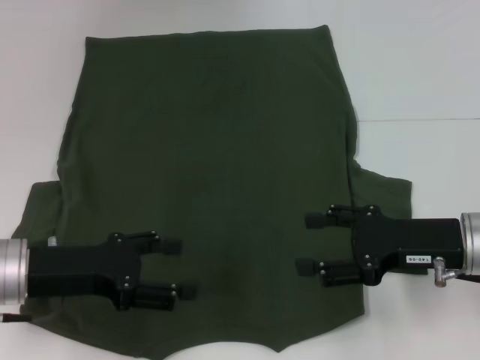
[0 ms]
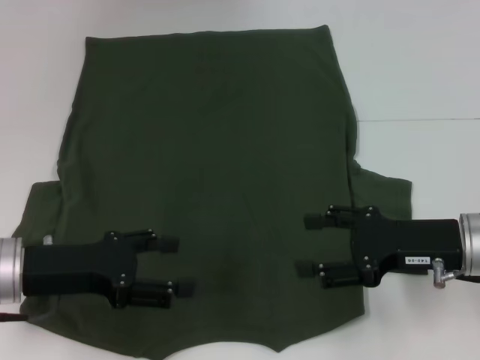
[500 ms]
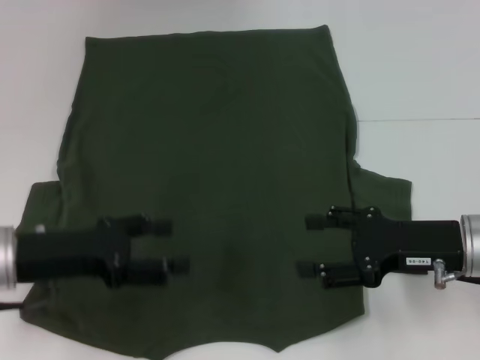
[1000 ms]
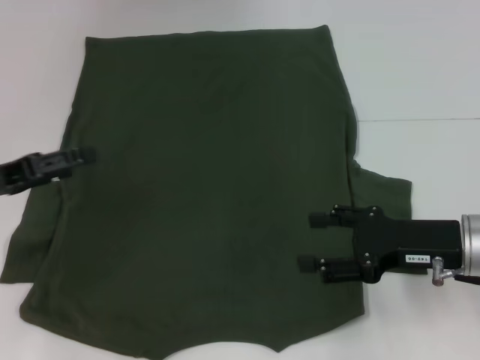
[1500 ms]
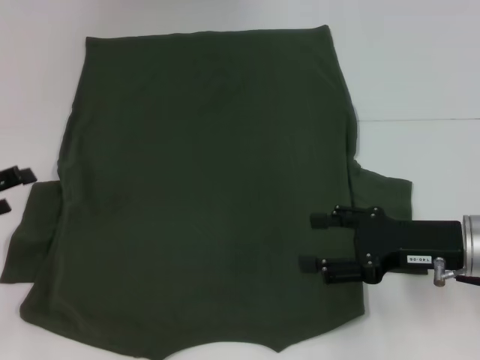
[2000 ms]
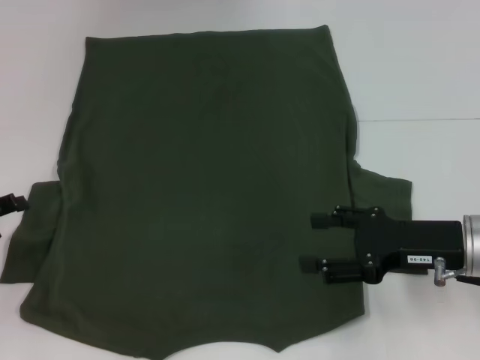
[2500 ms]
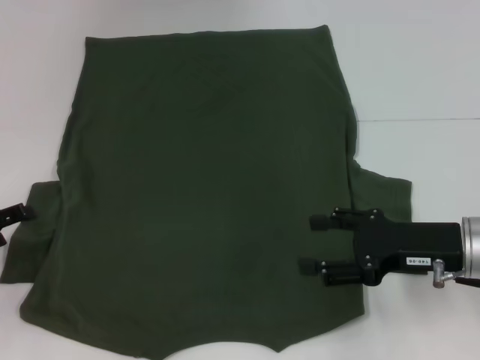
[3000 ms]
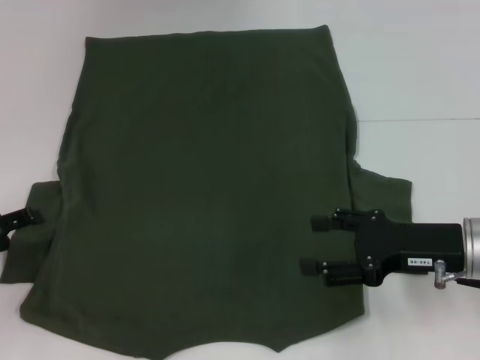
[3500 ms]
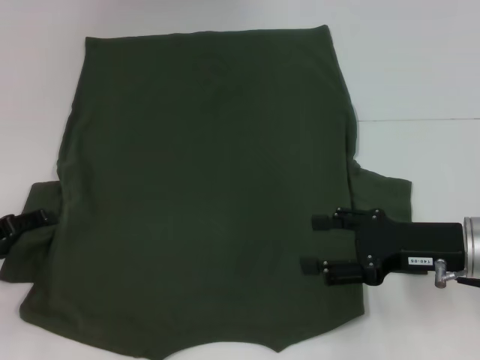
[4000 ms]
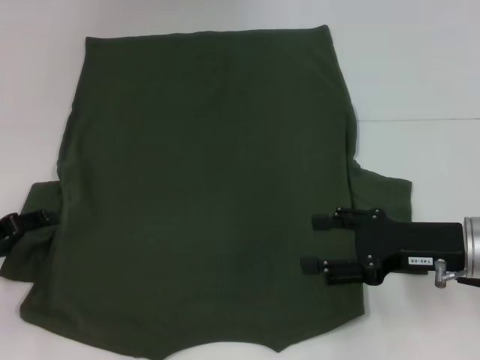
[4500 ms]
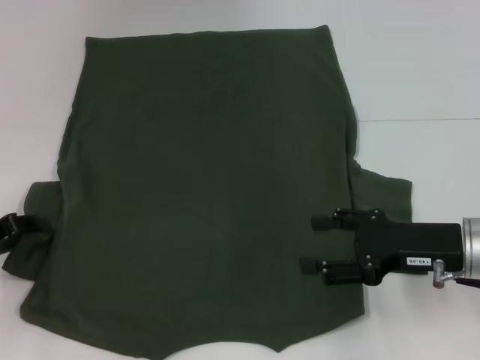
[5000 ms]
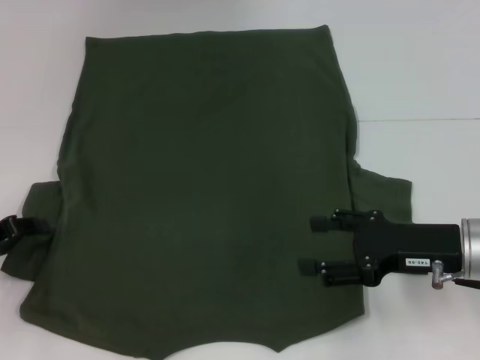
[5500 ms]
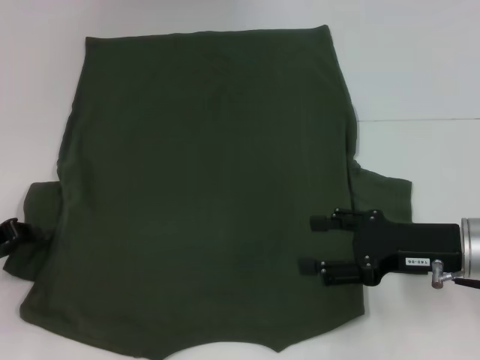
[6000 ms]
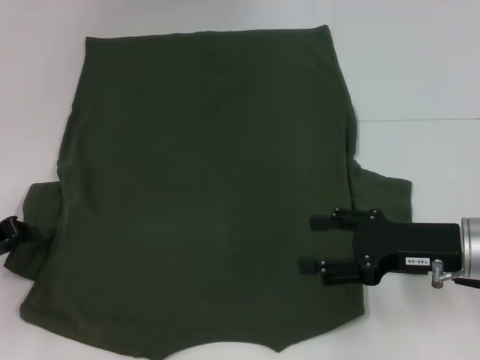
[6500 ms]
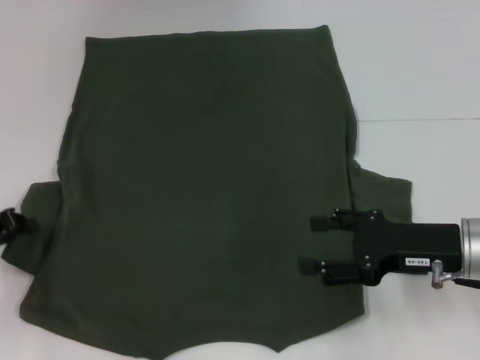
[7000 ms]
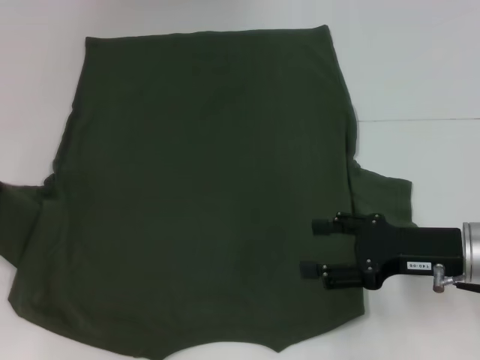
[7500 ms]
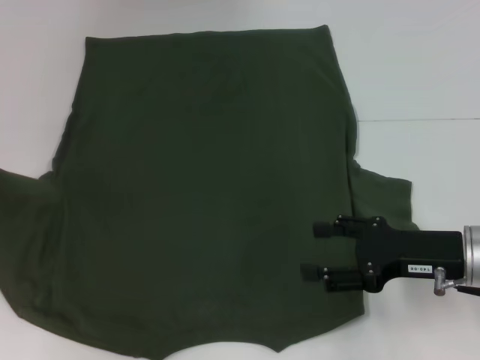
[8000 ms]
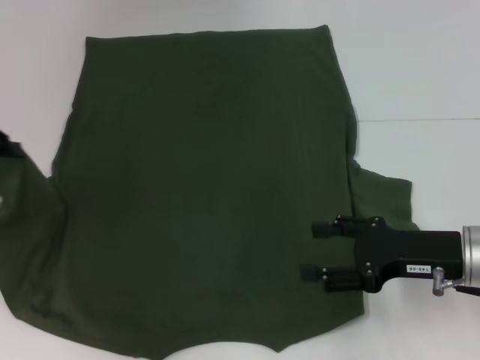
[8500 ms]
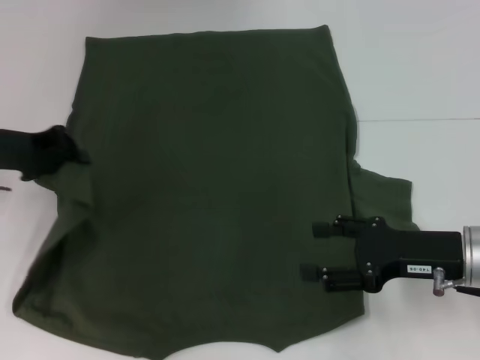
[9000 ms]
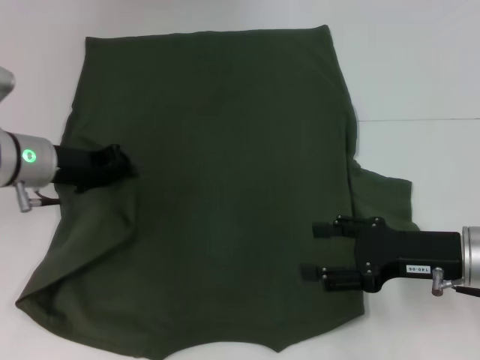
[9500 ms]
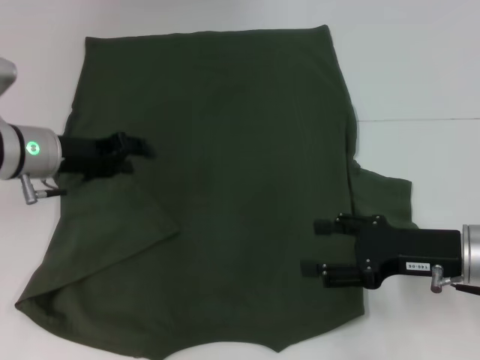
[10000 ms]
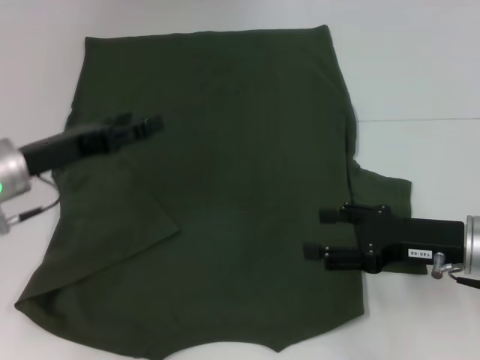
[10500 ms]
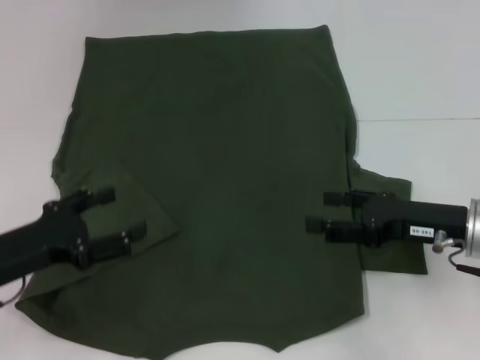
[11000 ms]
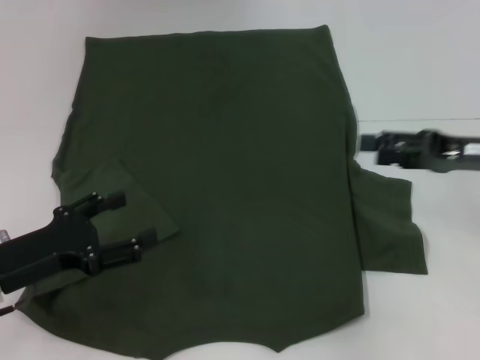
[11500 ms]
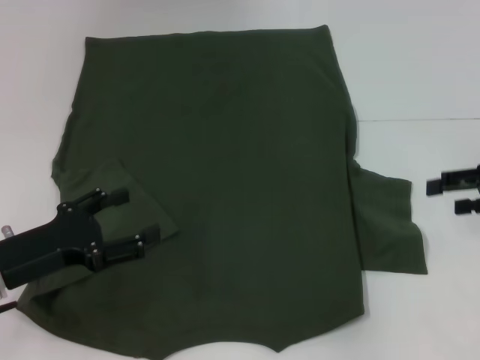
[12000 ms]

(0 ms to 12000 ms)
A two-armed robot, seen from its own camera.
Step, 0 ms - 9500 ms: Fold the bottom left sleeve with your left hand.
0 ms - 2000 ms: The left gripper goes some 10 cm to the left.
2000 ms - 4000 ms: The grippers make only small movements.
4000 ms - 6000 ms: The left gripper closes its fingers.
6000 ms - 8000 ms: The left gripper travels upward and to the left by roughly 15 cm.
8000 ms - 10000 ms: The left gripper heads to the right, covering approximately 15 cm, and opens its fingers.
10000 ms - 12000 ms: The left gripper heads backward, covering roughly 15 cm, and opens its fingers. The right gripper heads to the right, upward and forward, covering approximately 15 cm.

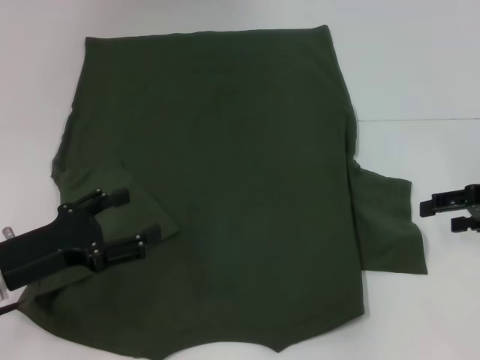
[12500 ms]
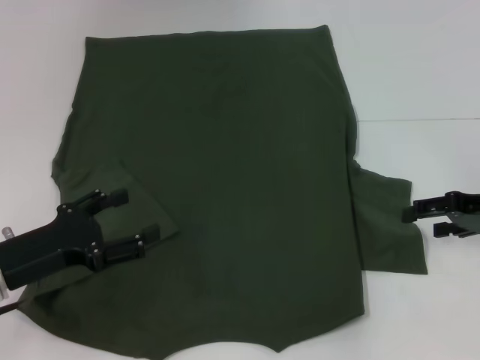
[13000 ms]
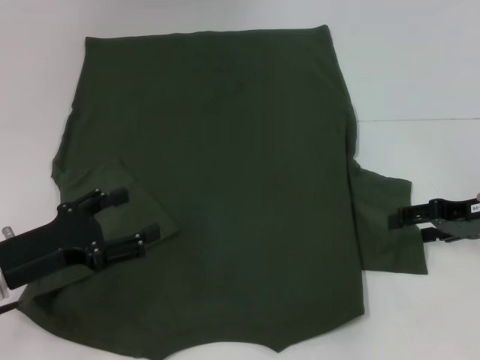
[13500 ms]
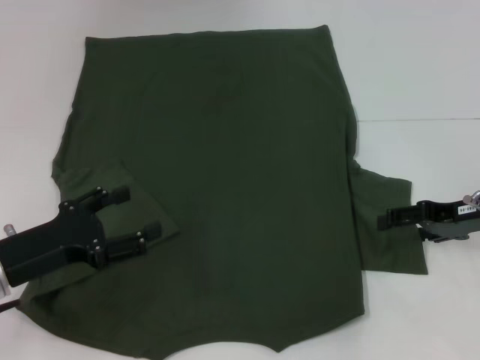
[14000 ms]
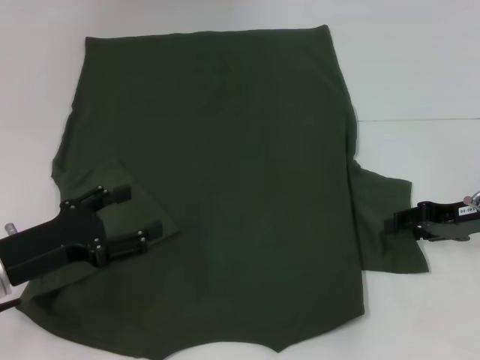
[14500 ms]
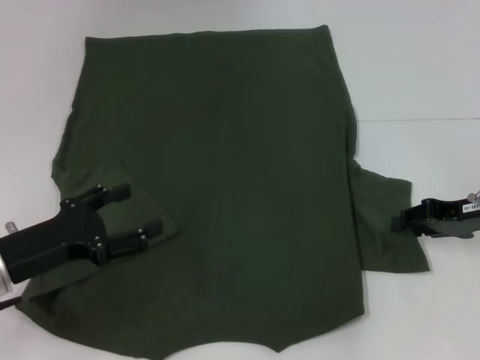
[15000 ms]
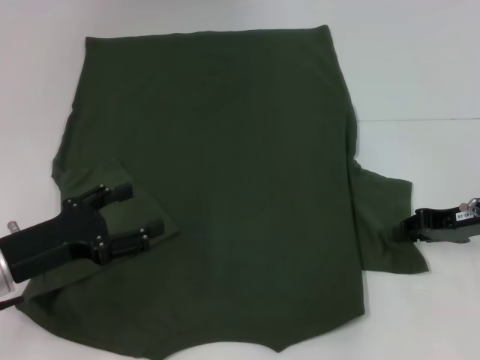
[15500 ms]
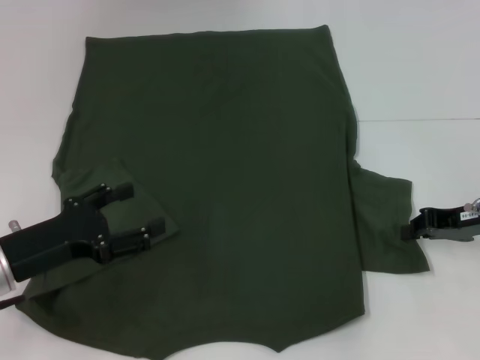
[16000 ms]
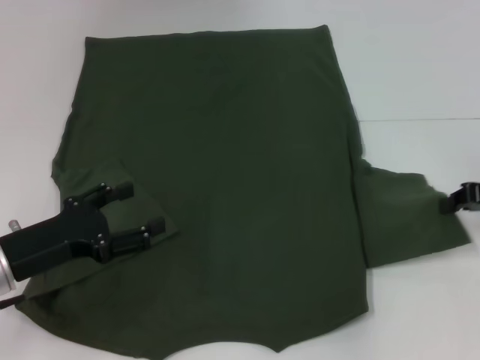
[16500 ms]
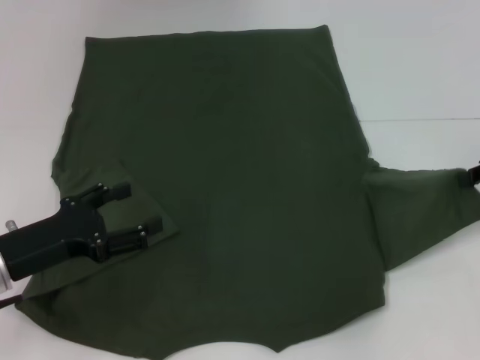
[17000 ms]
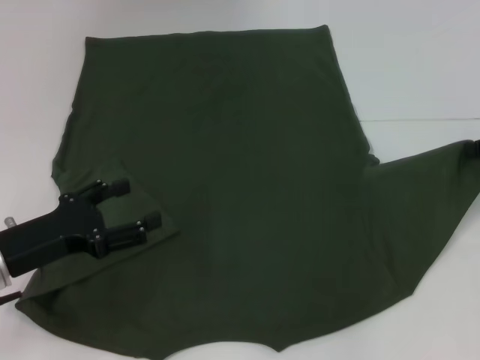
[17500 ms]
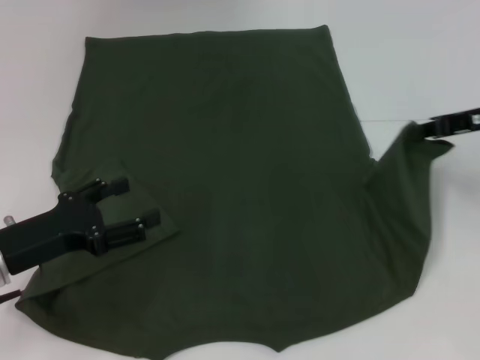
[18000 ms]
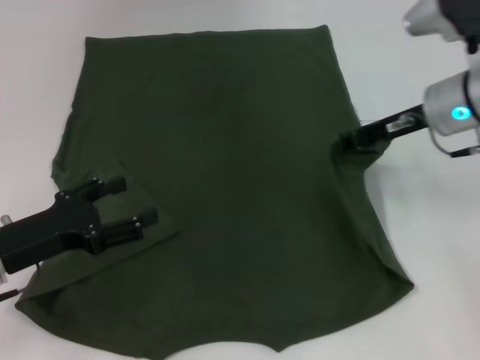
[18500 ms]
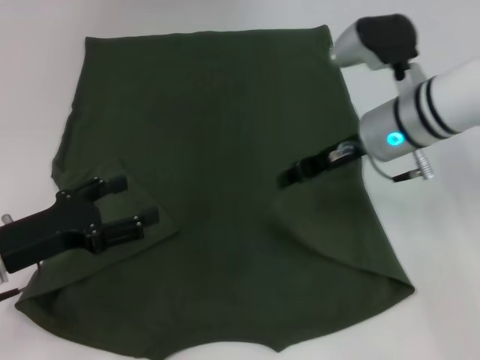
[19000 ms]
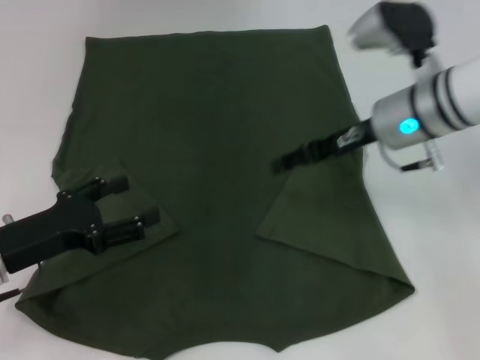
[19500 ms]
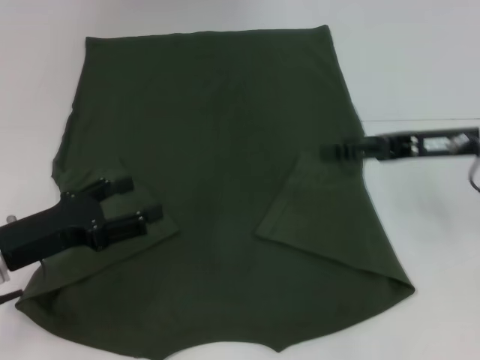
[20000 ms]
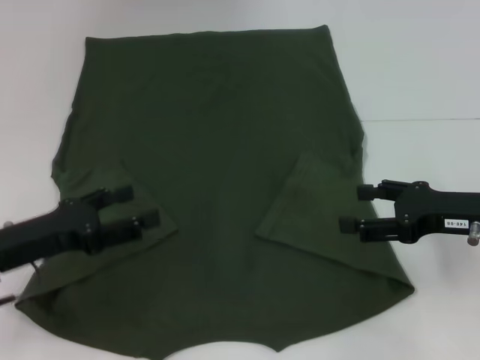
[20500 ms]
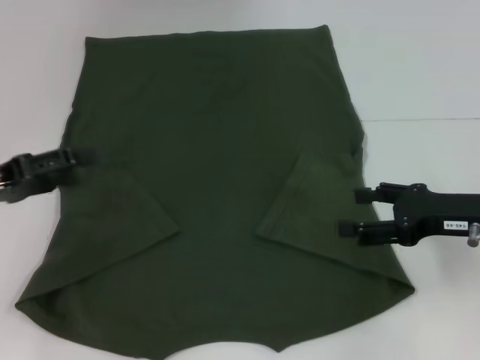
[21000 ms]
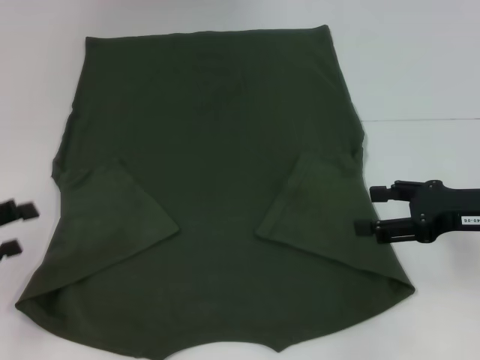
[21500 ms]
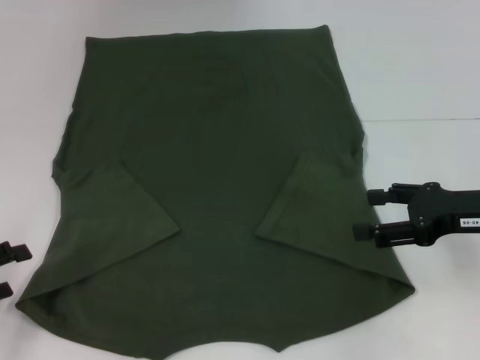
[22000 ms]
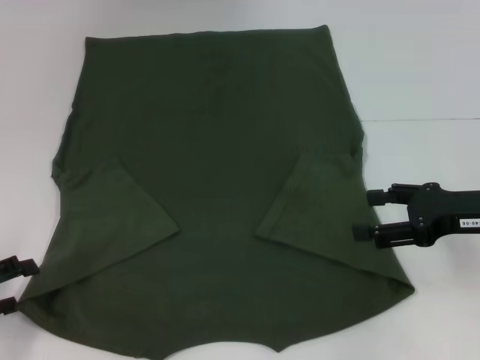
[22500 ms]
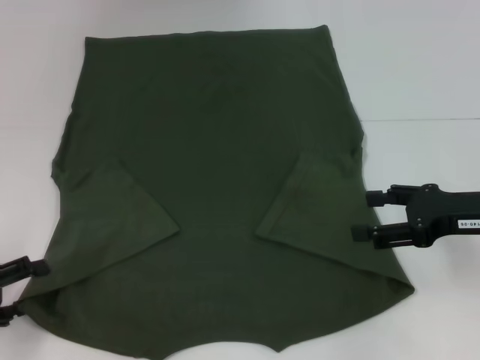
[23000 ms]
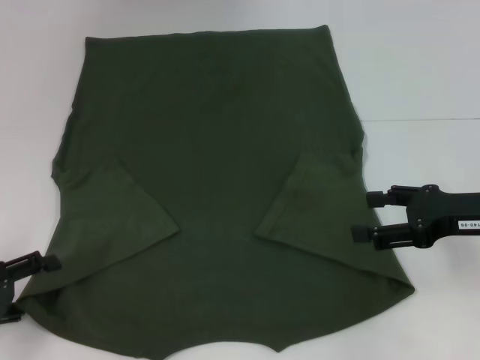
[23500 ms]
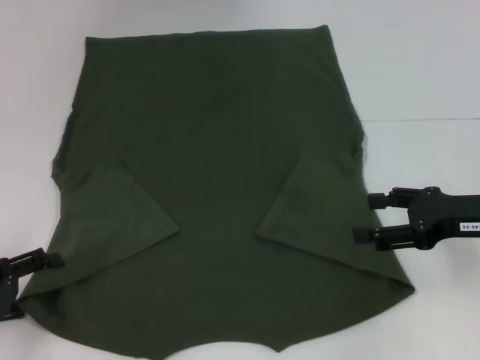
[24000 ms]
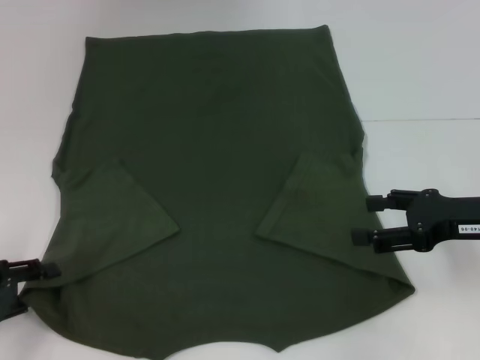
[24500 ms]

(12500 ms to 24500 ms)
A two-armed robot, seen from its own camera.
Step, 12500 ms - 19000 ms: Fold the bottom right sleeve with your right hand.
12500 ms - 14500 ms: The right gripper ends up about 5 cm from where it was.
14500 ms - 16500 ms: The right gripper closes its fingers.
16500 ms - 18500 ms: The right gripper is displaced to the left, forward and upward by some 15 cm.
18500 ms - 20500 ms: The right gripper goes about 15 cm backward, downward and to the right, and opens up.
20500 ms - 22500 ms: The left gripper is displaced to the left by about 10 cm.
22500 ms - 24500 ms: The grippers move only a little.

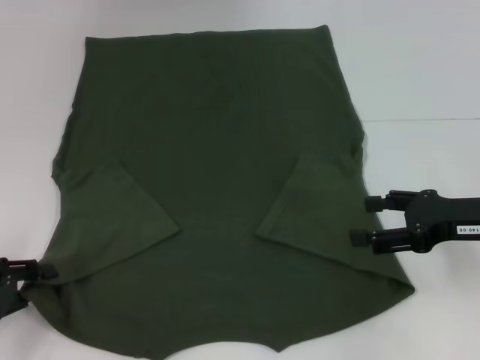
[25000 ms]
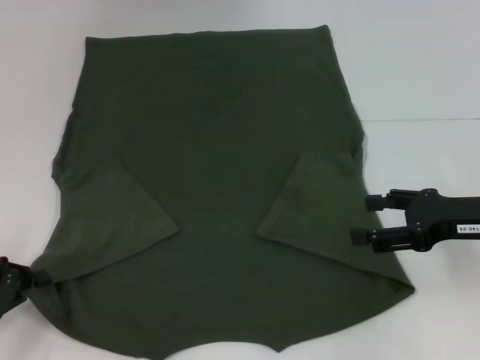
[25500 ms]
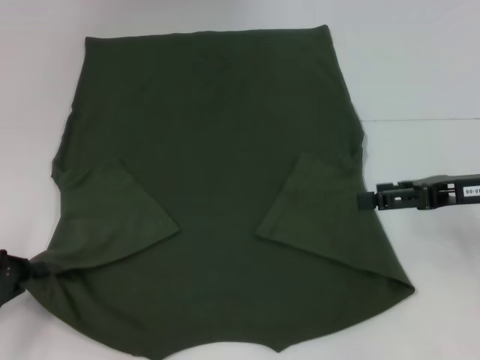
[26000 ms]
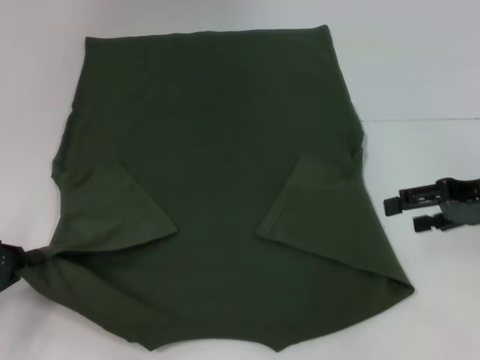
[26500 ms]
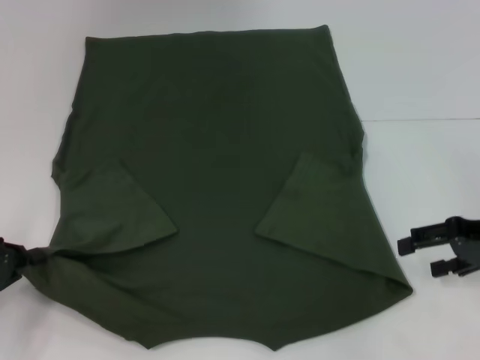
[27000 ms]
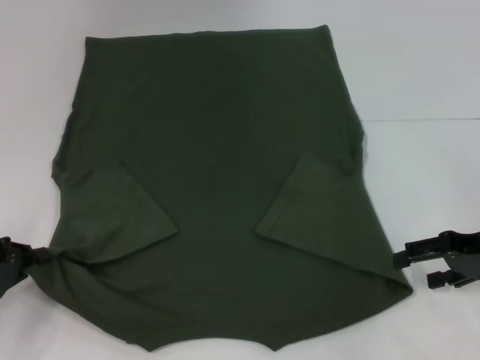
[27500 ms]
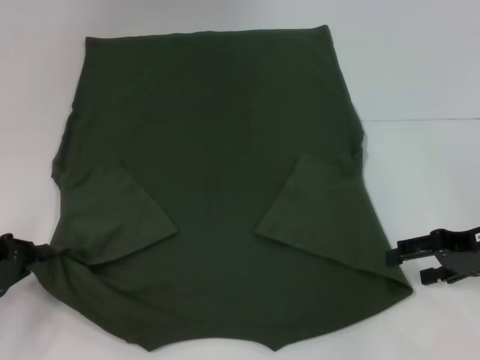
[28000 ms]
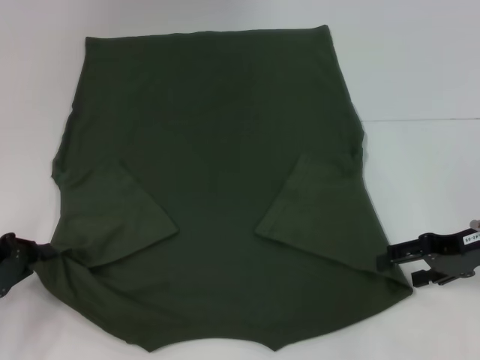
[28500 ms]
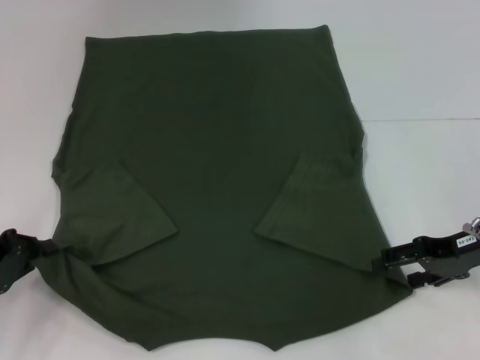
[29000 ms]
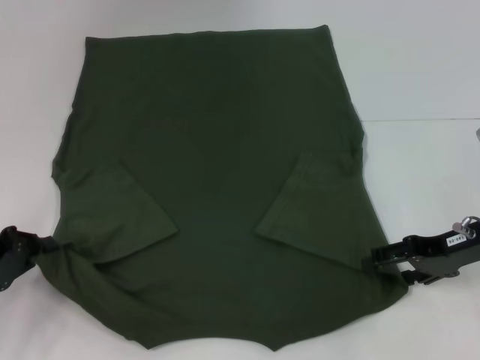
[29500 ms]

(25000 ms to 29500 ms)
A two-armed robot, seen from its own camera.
25000 ms - 27000 ms: The left gripper closes up.
27000 ms - 29500 ms: The grippers move only a little.
